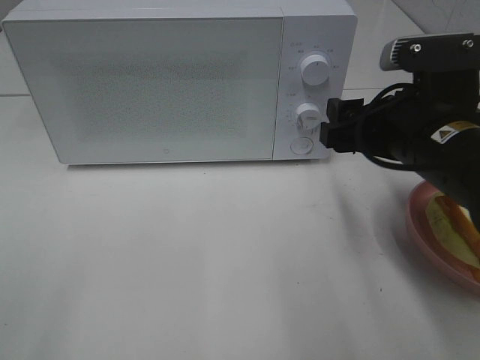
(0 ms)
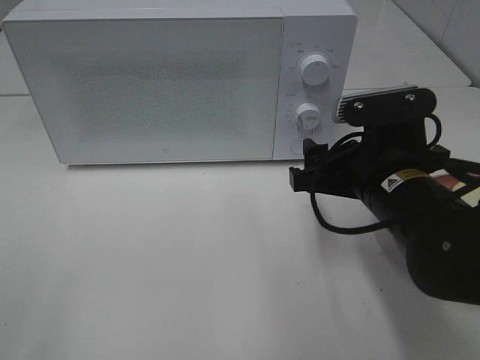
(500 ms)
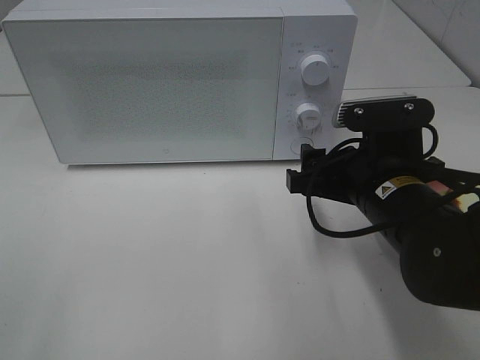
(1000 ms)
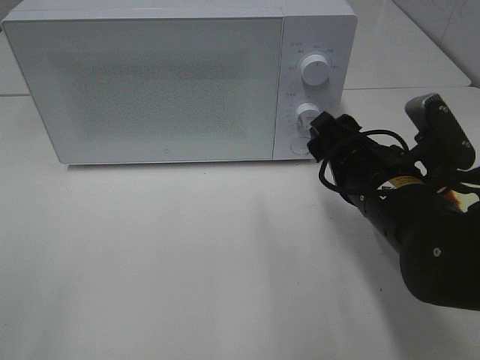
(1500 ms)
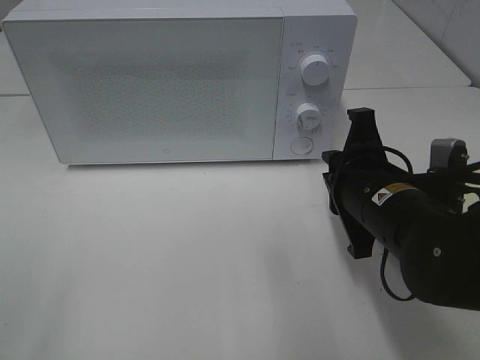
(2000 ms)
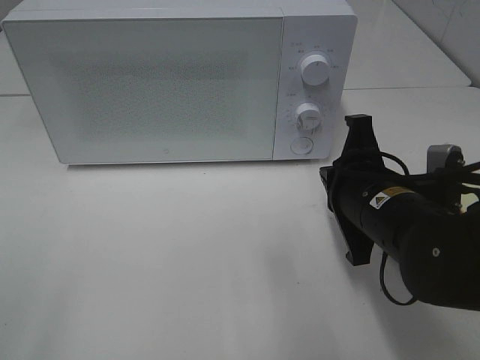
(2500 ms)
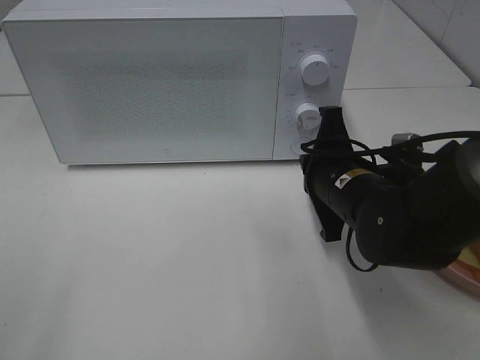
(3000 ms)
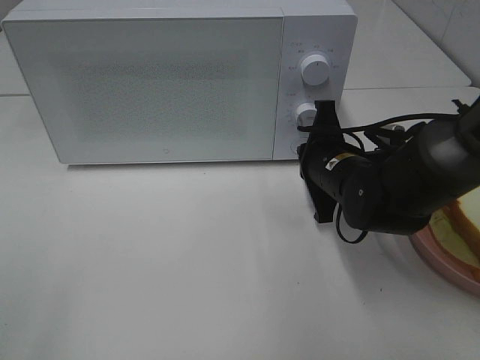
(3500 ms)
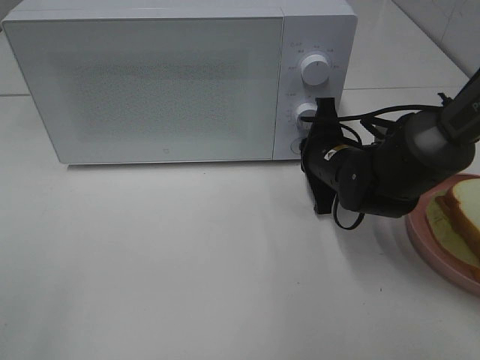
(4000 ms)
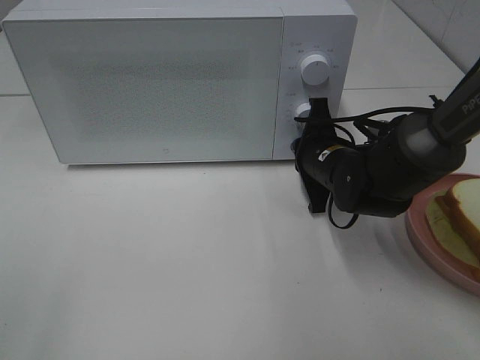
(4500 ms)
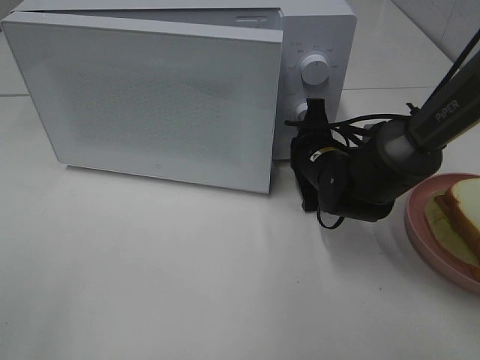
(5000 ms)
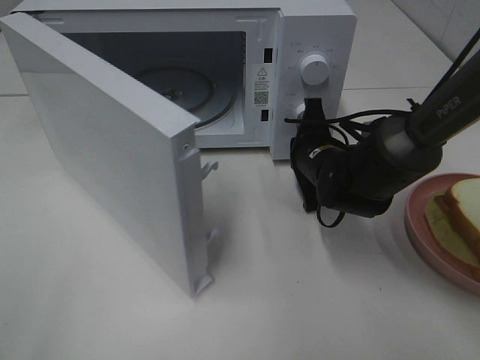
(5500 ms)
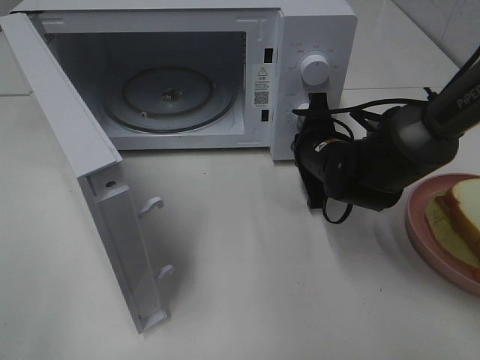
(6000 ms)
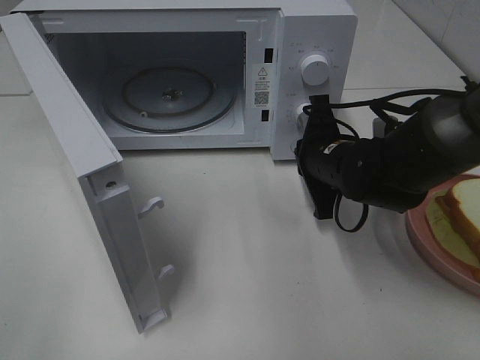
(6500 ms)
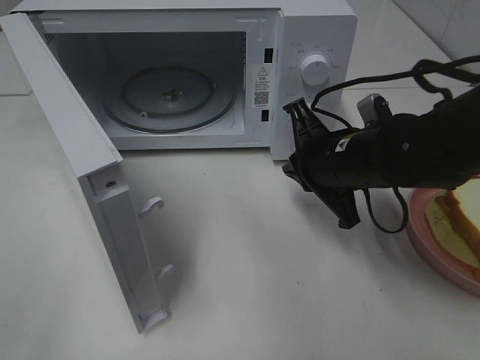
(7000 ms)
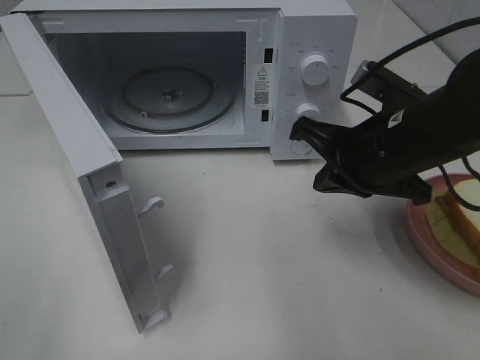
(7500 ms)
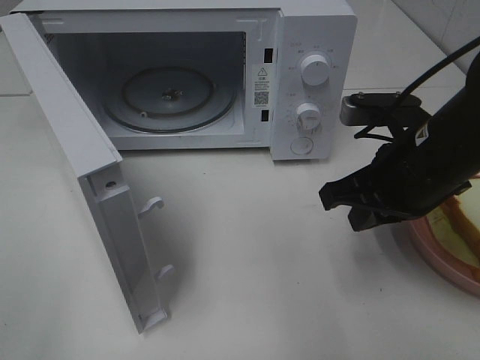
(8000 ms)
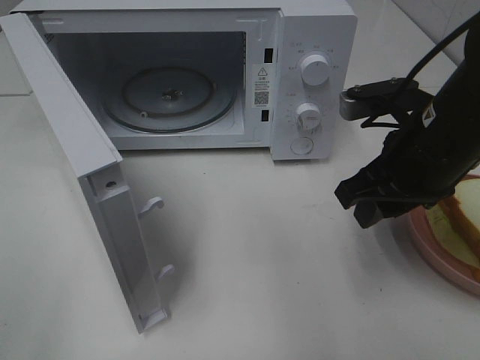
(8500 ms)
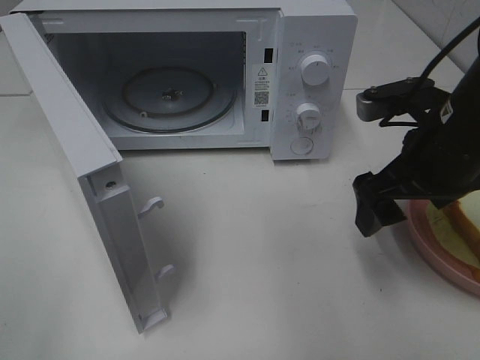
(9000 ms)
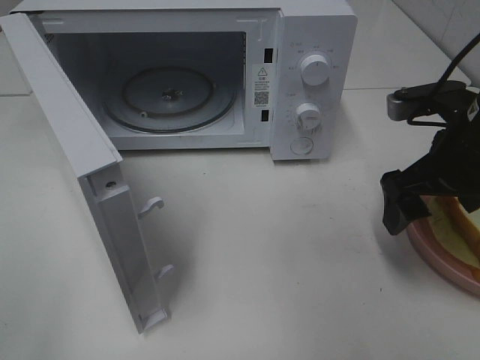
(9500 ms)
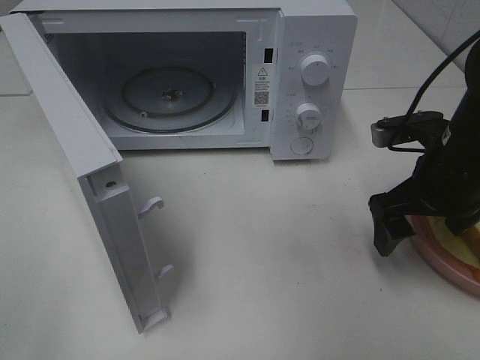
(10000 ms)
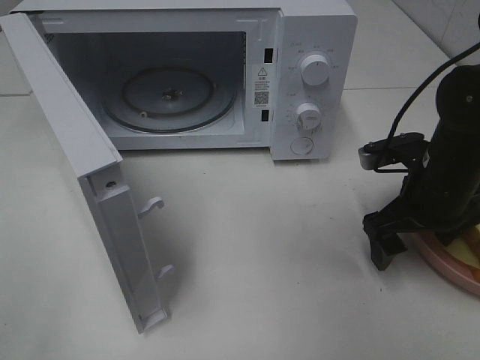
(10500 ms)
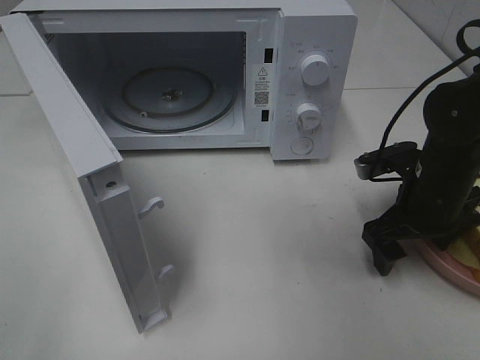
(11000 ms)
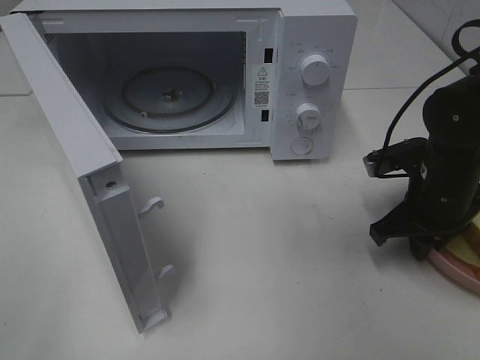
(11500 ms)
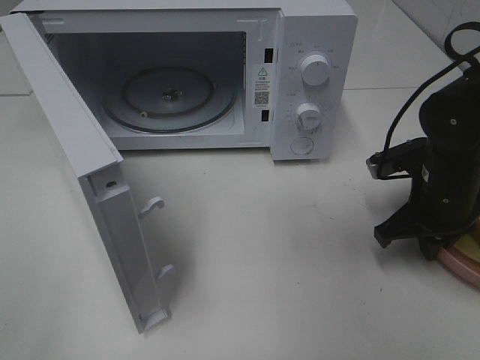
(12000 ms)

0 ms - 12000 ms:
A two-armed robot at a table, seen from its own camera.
Task of the whole recording: Heat Sandwich.
Step, 0 ms - 6000 ms: Right hand: press the switch.
Step, 6500 ms - 11500 ms: Right hand: grab the plate with the sandwich.
0 ms - 2000 ms: The right gripper goes about 5 cm downward, and closes up.
2000 ms - 4000 ms: The right gripper is displaced forward and downward by about 15 cm.
6000 ms - 8000 ms: The right gripper moves backward and upward, roughly 15 cm.
8000 ms - 10000 ms: The right gripper moves roughly 5 cm, and opens.
10000 ms - 12000 ms: The right gripper heads downward, covering about 5 cm, and closes up.

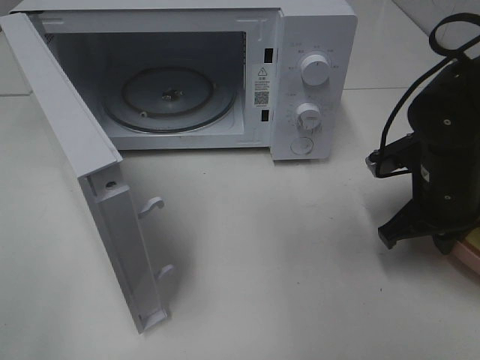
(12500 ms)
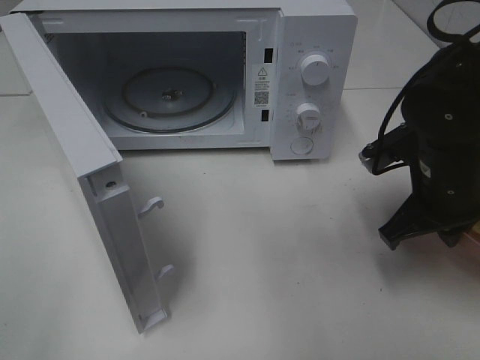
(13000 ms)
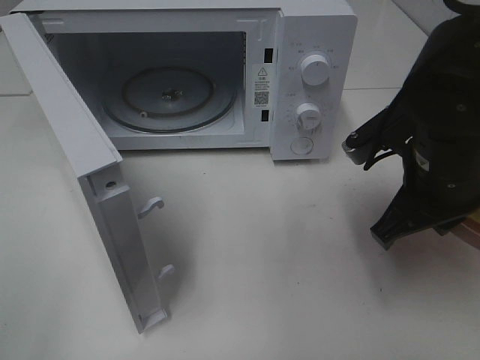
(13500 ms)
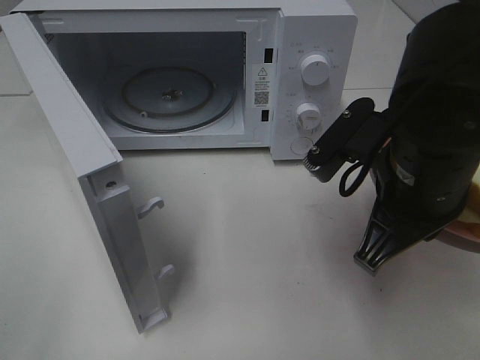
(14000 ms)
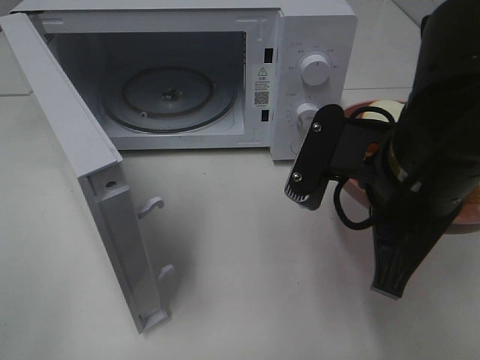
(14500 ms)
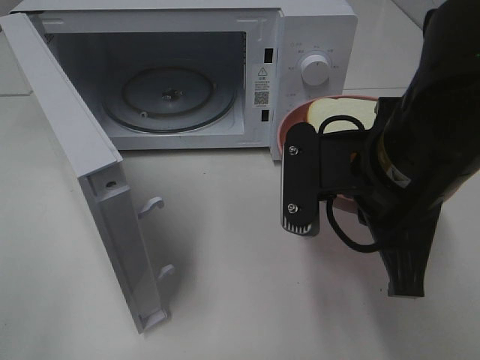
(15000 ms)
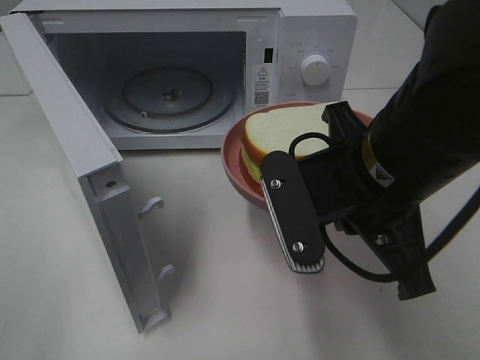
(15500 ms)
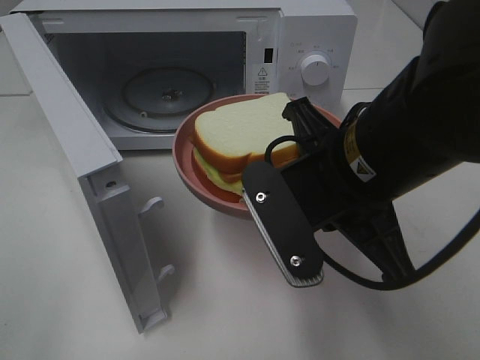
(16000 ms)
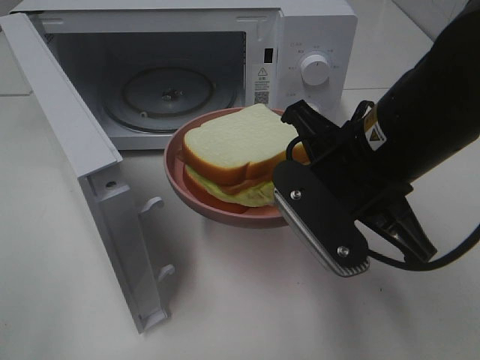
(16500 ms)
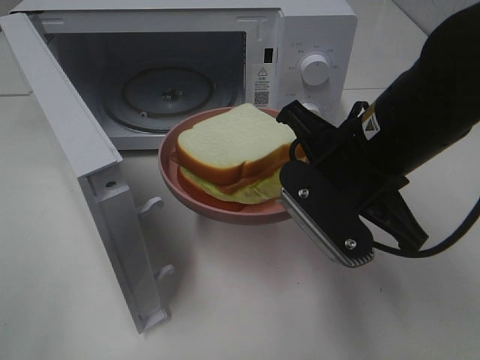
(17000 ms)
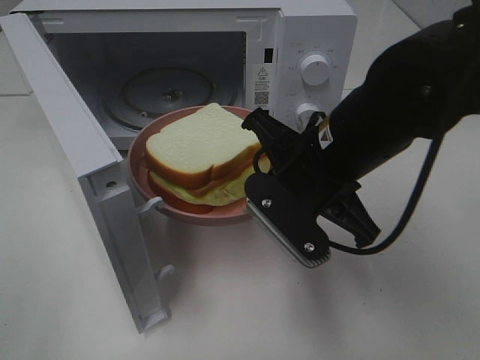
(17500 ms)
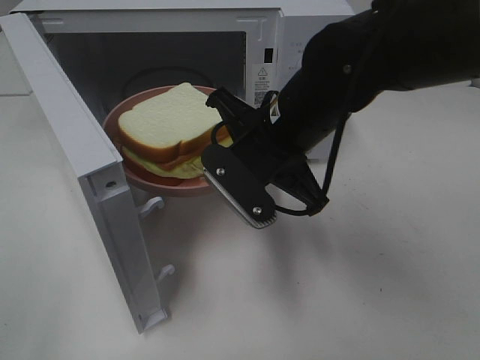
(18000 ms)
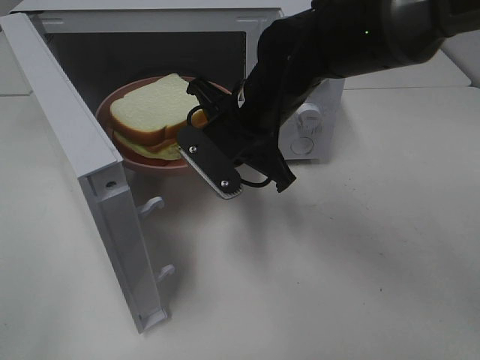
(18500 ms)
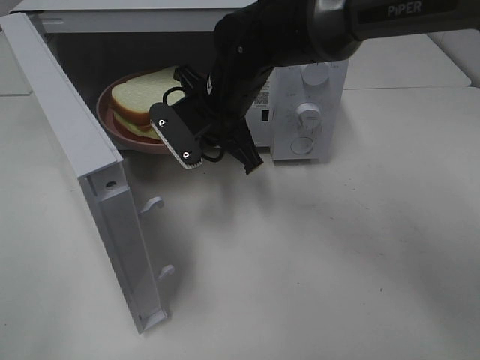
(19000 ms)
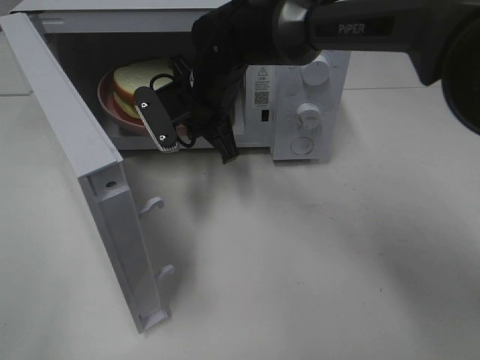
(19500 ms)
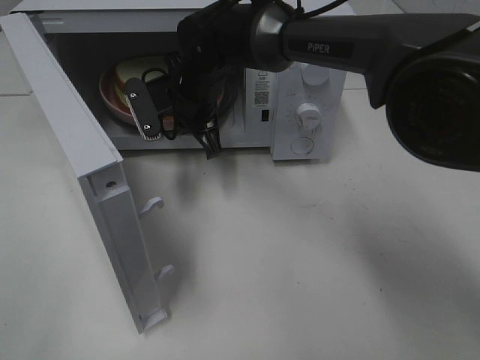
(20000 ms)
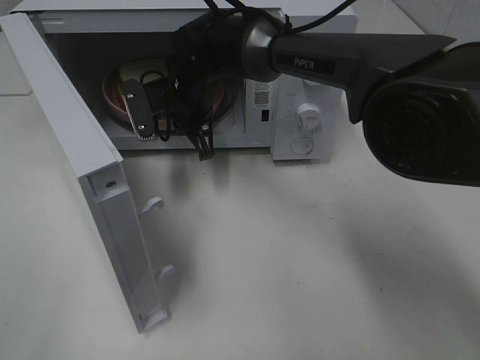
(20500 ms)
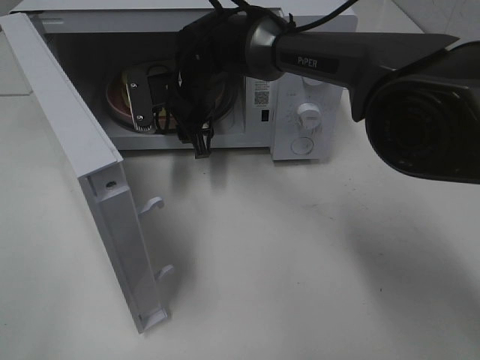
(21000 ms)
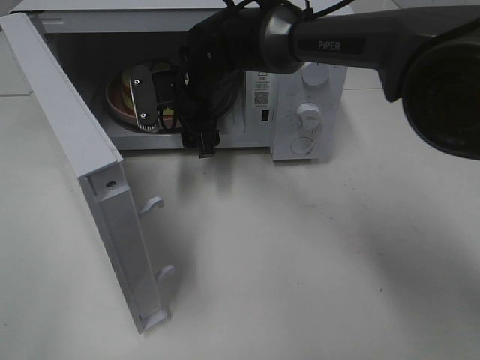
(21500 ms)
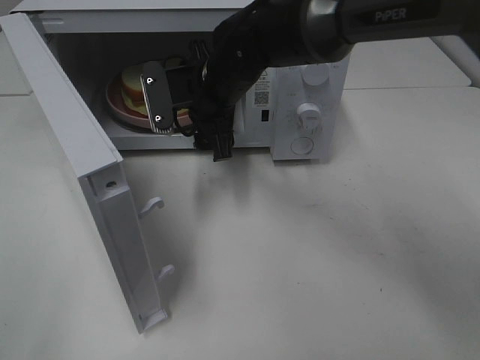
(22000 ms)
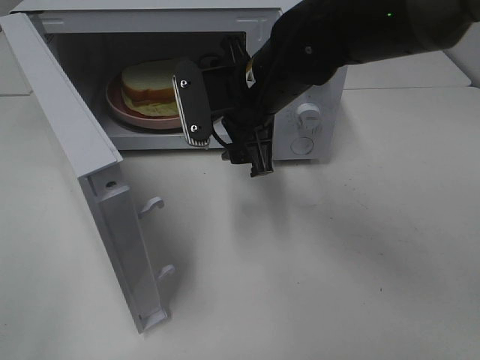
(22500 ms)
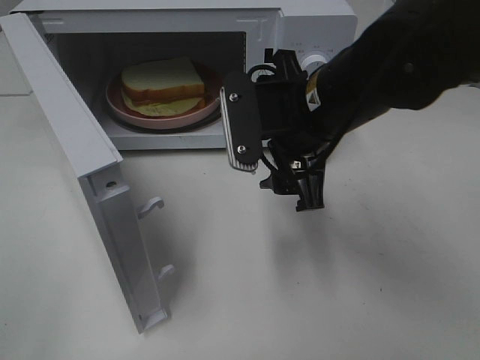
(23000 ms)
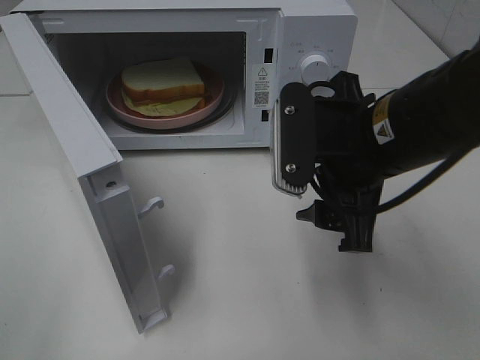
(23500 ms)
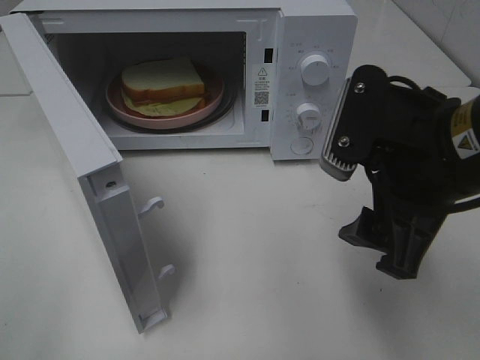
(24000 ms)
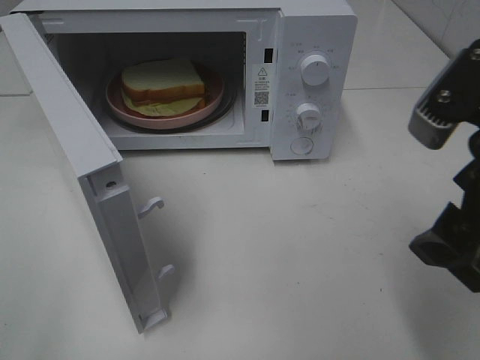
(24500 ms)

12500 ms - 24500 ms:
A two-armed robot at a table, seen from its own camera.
Task of the whole recording: Heat Sandwich.
Step, 12500 ms - 21000 ms: Right hand: place the plate in the microwave.
12500 ms - 14500 ms: The right gripper is displaced to the left, upward and backward by about 15 cm.
16500 ms - 18500 ms: The right gripper travels forward and to the left by approximately 15 cm.
18500 ms - 20500 ms: The right gripper moves forward and to the left, about 15 cm.
20500 ms - 22500 ms: The right gripper travels backward, to the right and upward by roughly 15 cm, and opens.
22500 ms - 24500 ms: The right gripper shifts some 25 cm backward and to the right.

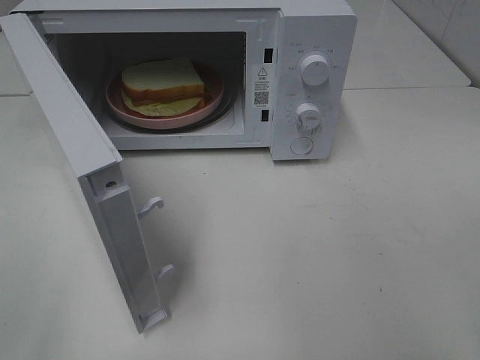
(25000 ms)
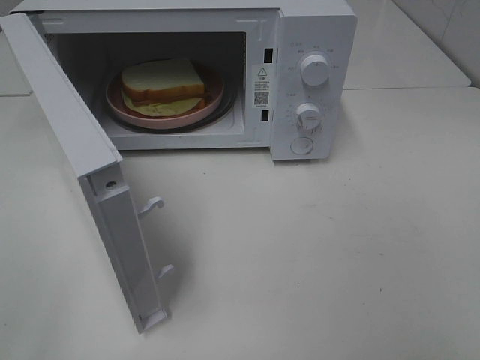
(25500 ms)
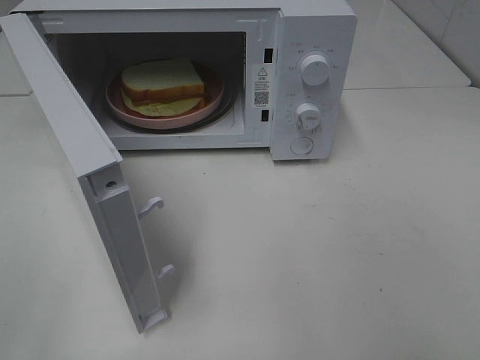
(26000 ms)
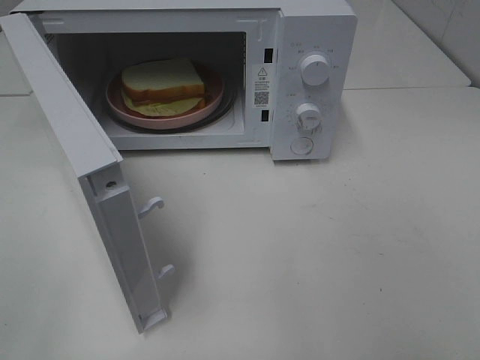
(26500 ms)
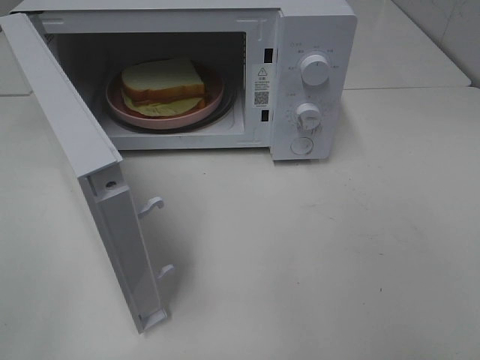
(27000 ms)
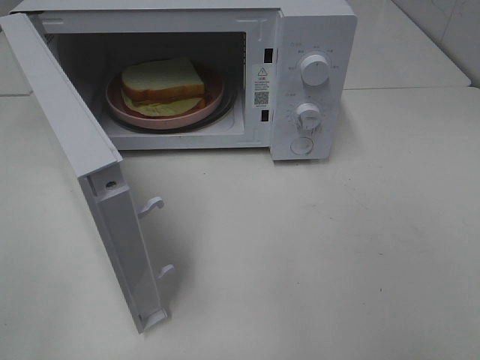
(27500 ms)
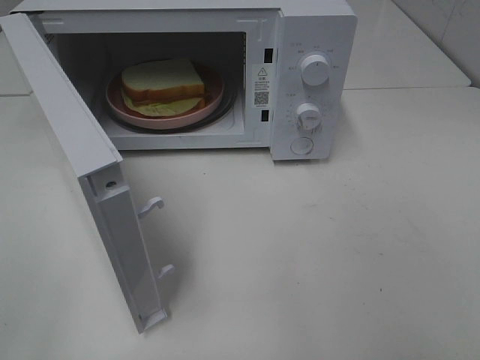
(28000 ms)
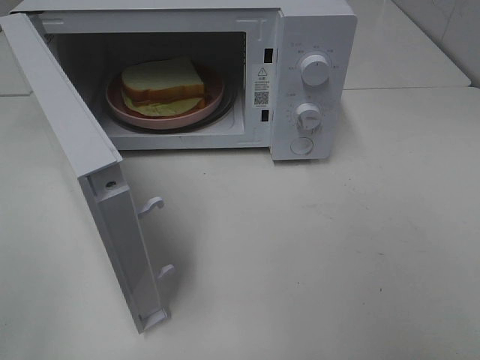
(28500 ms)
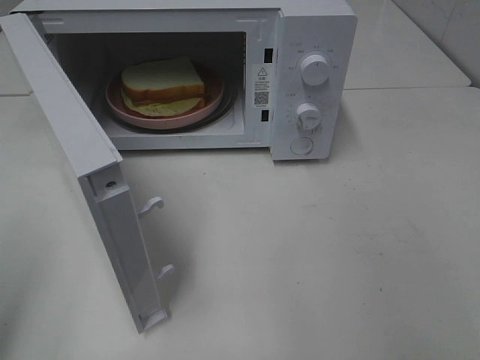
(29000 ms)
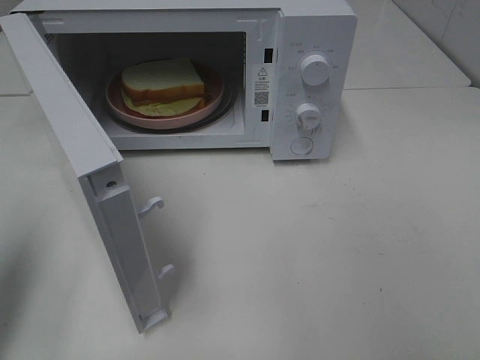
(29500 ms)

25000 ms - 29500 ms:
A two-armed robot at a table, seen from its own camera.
Task of the whole recording: Heat Sandwich.
27000 ms - 29500 ms: The left gripper heads forward, covering about 15 cm, and closes.
